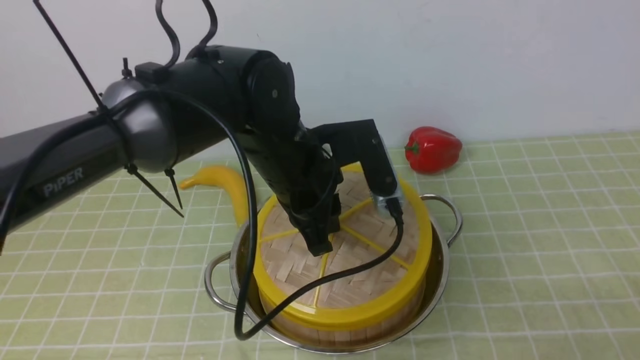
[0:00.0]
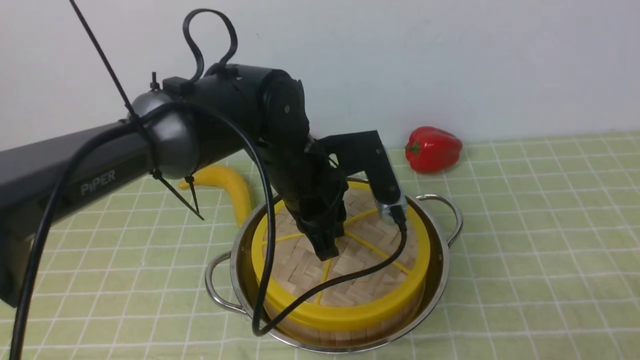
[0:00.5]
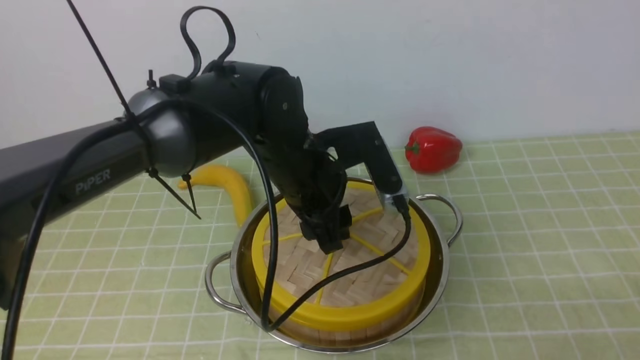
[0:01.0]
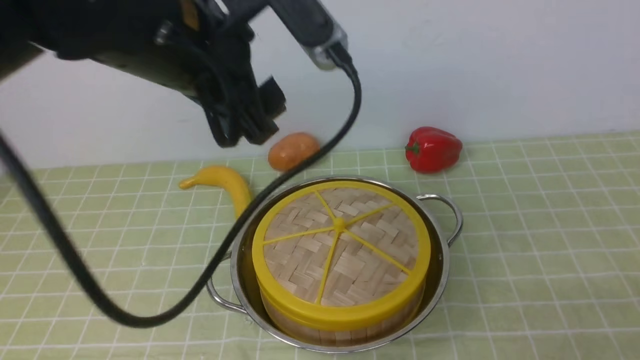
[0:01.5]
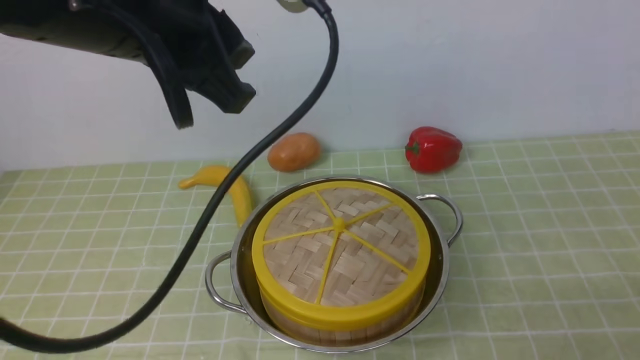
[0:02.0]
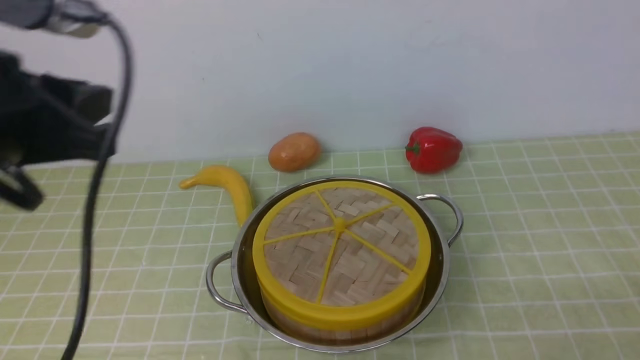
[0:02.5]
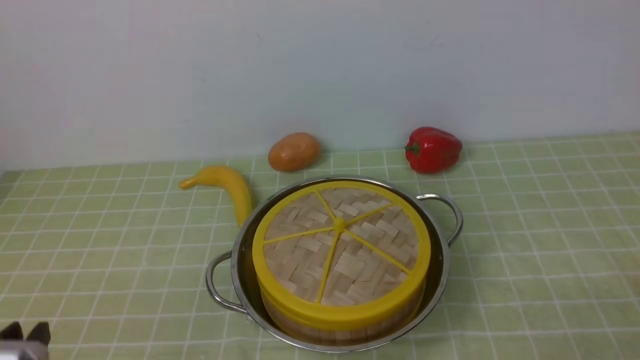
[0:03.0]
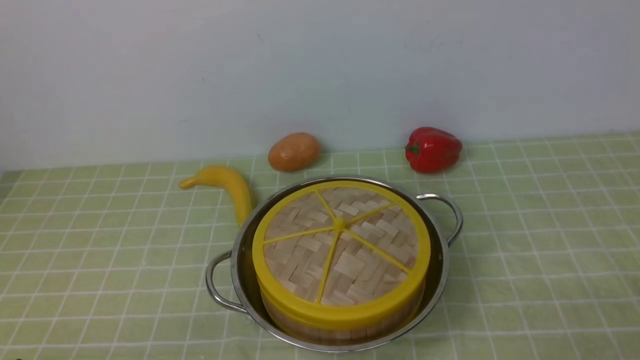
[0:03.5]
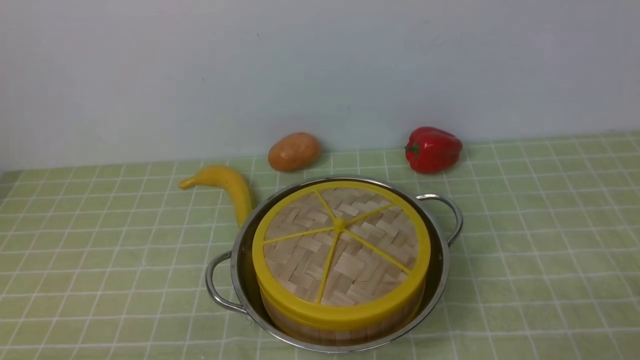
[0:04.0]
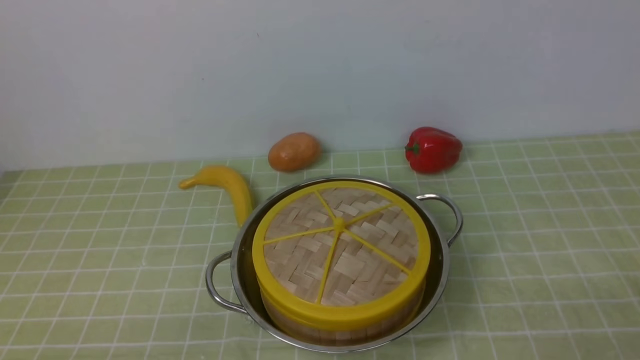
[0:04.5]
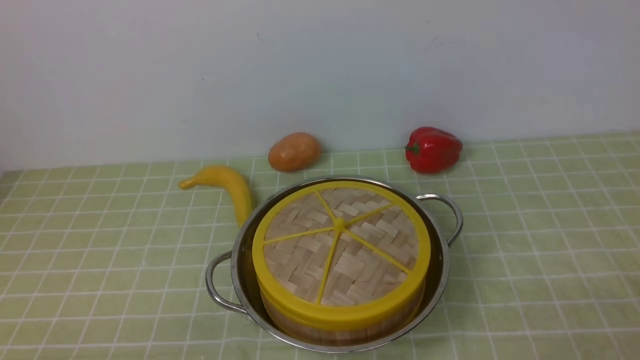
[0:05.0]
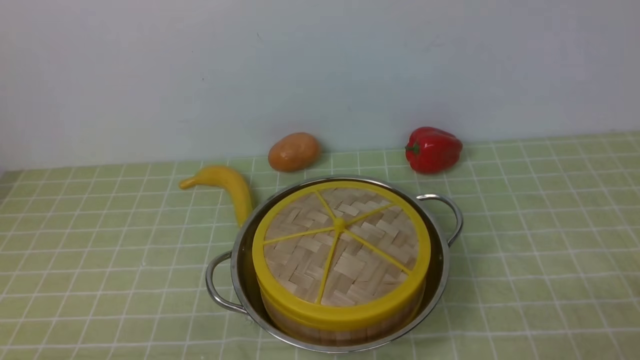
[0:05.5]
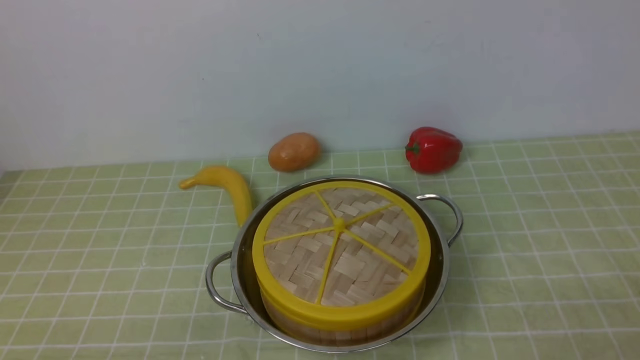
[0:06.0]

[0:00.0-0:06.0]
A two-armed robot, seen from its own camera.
Task of the whole recording: place the steamer in the pot on the green tablecloth, and put the lid on the steamer.
0:00.0 to 0:02.0: The left gripper is displaced upward, backward and to the left by roughly 20 cm, and opens its fingers.
0:02.0 to 0:04.0: The left gripper shifts some 35 cm downward, backward and to the left.
0:04.0 to 0:06.0: Neither gripper changes place.
